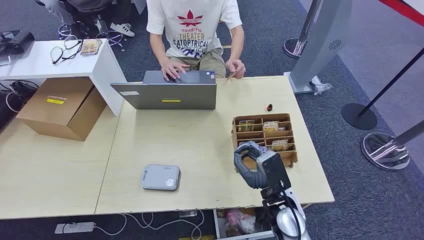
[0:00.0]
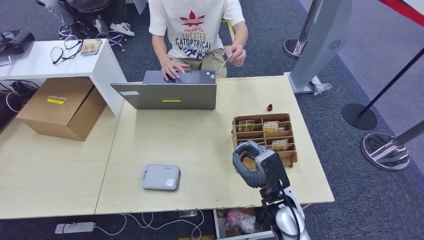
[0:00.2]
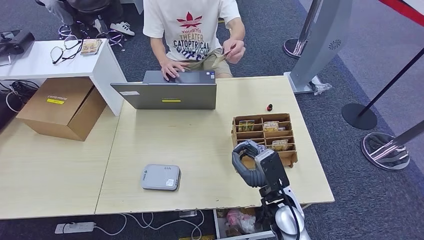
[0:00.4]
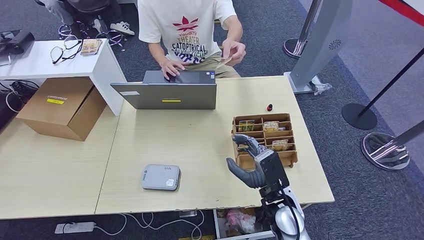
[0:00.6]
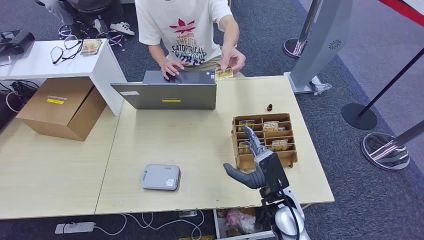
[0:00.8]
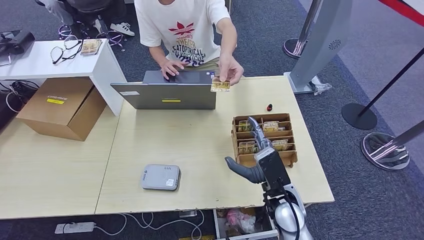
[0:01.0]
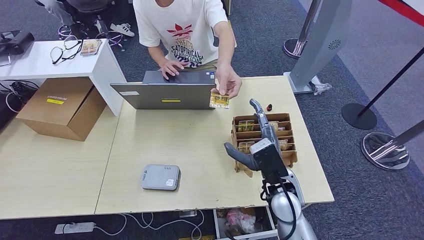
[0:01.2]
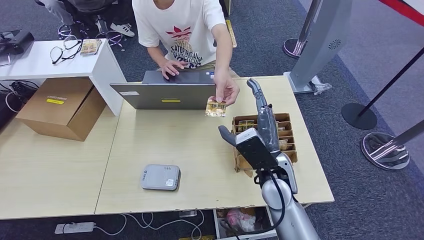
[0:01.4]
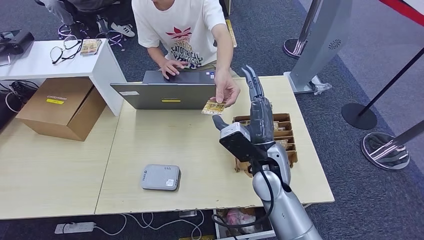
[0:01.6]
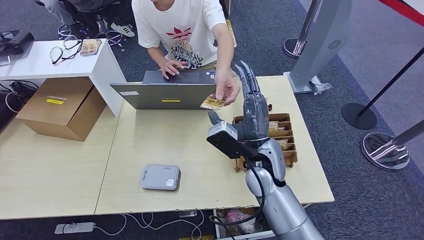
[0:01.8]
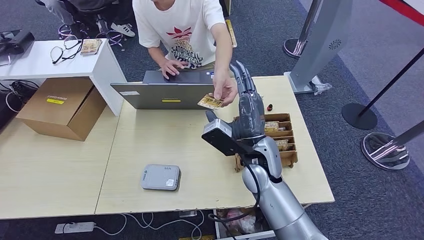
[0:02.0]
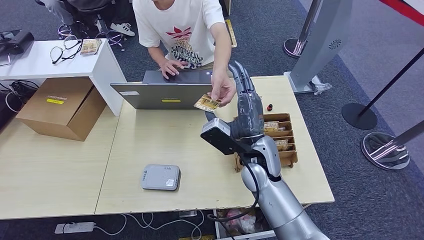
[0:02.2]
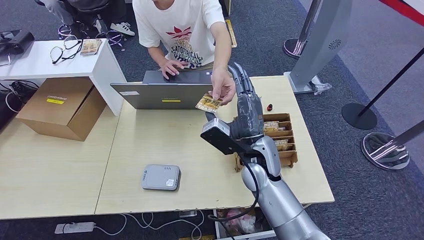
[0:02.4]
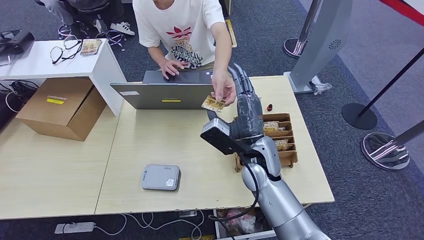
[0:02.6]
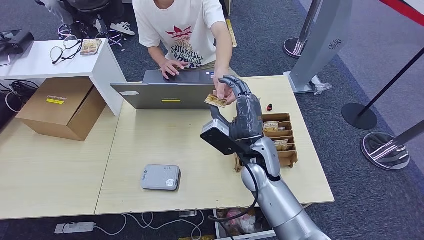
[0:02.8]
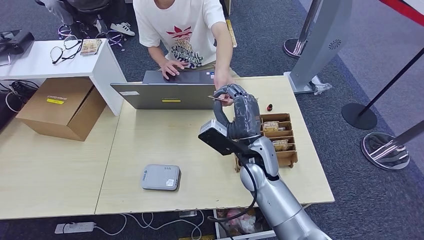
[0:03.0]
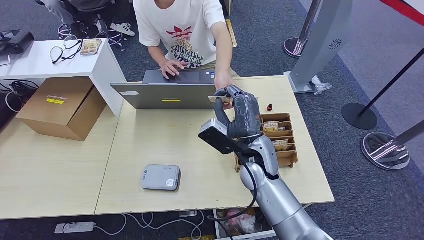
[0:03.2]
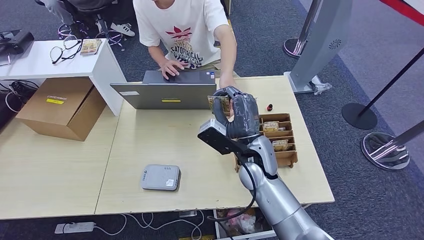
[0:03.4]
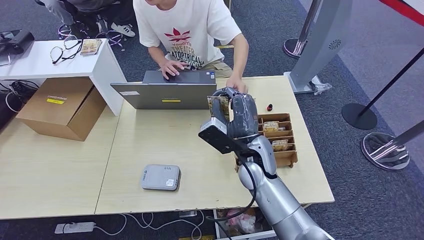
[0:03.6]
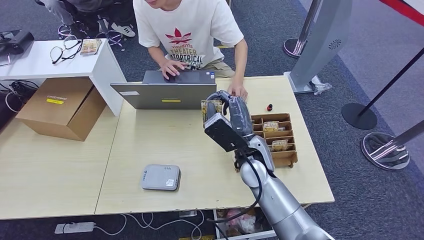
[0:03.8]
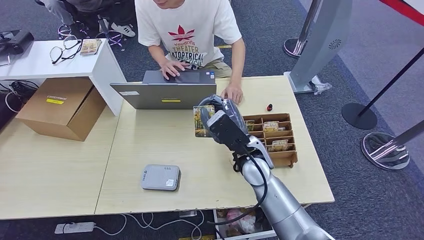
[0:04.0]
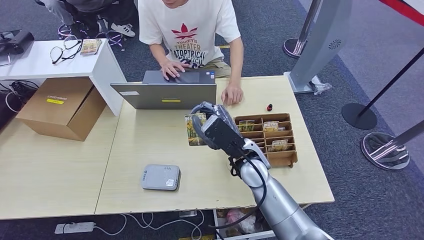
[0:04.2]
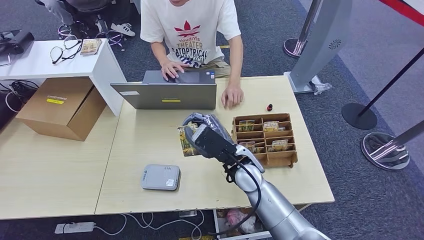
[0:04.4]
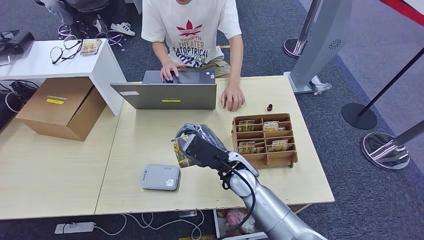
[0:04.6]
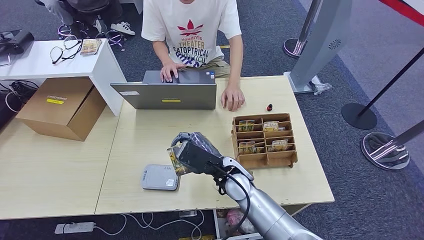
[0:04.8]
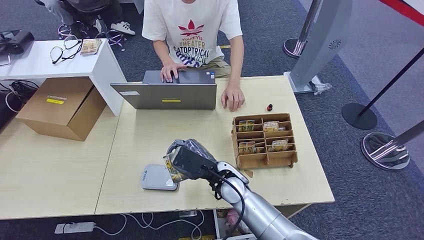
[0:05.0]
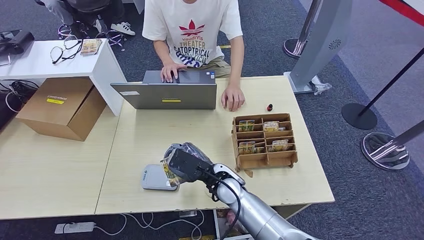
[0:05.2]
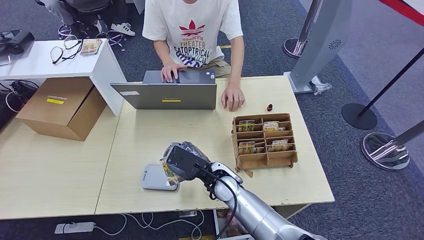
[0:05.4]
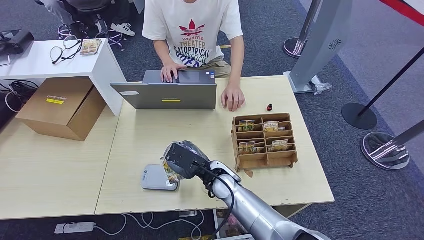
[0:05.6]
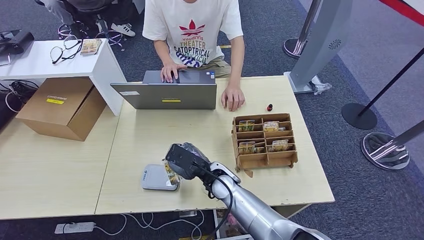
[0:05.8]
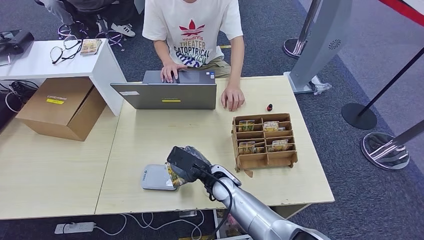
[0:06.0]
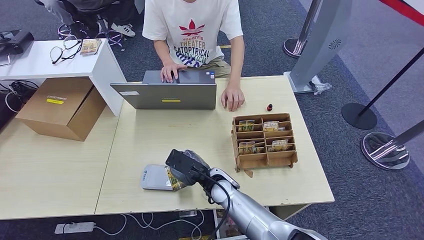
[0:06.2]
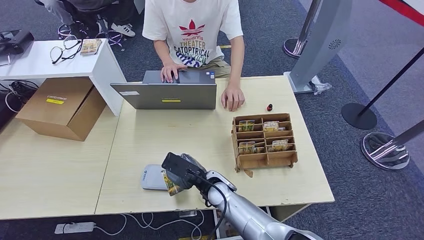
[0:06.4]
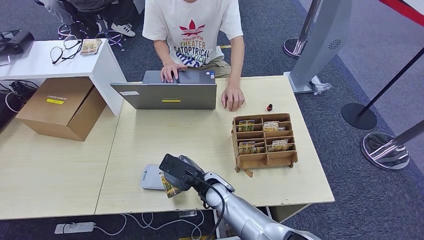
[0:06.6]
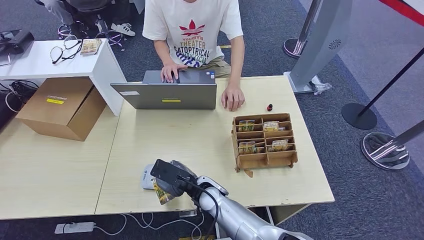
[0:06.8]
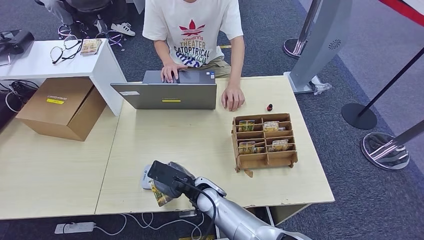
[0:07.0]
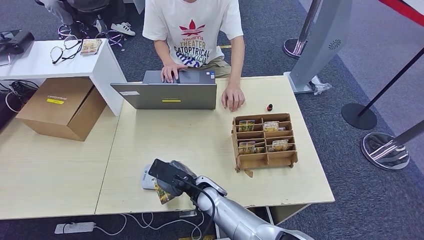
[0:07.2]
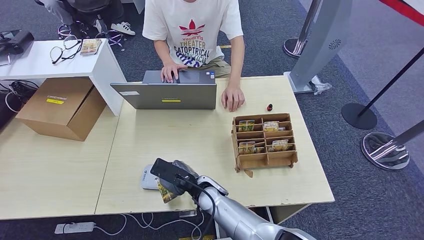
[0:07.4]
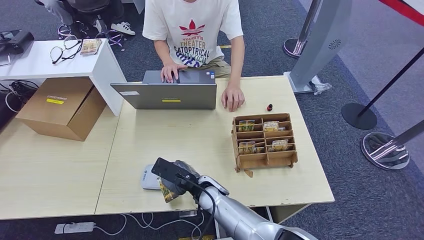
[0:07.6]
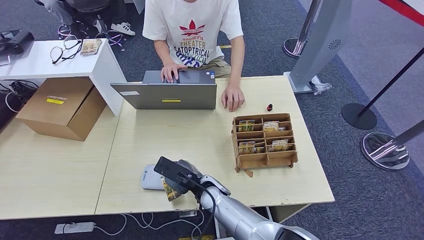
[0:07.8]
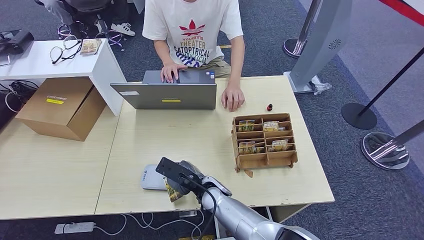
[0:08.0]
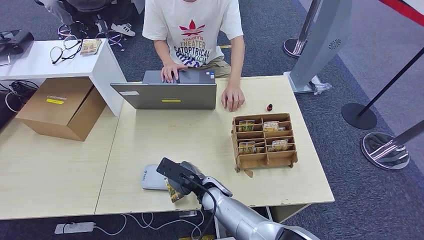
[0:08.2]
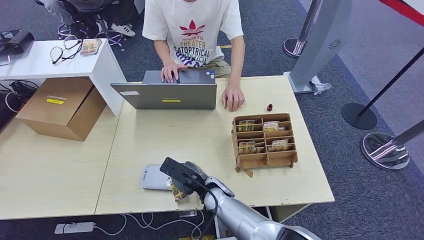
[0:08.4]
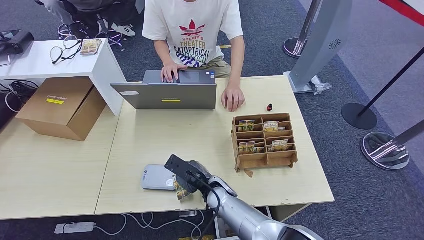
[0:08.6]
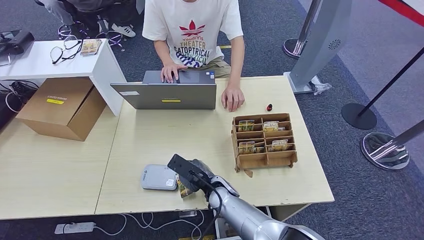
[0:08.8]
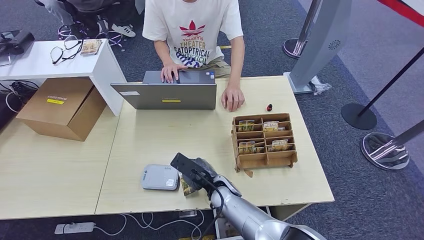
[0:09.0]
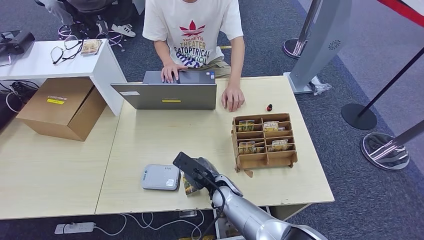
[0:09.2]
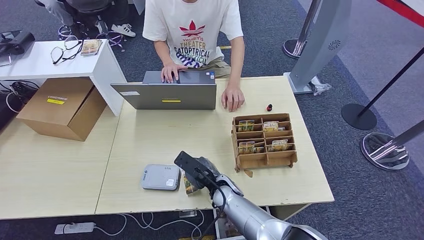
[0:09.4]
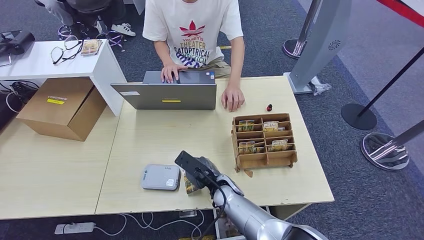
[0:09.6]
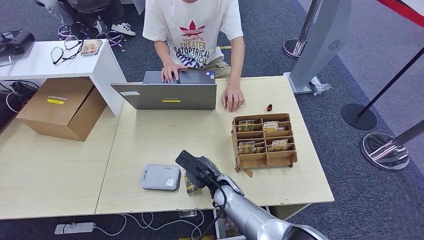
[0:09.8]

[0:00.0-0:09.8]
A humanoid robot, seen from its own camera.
Step, 0:00.0 to 0:03.6: Take the ID card from the person's hand.
0:01.4 to 0:02.8: The hands make only small movements.
0:04.2 to 0:05.6: The right hand heads downward and to the left, covering about 10 cm.
0:05.6 to 0:07.0: The right hand ends up about 5 cm from where it was.
0:07.0 to 0:08.4: The hands move only a little.
0:08.4 to 0:09.8: The hands stay close to where they were, moving slightly.

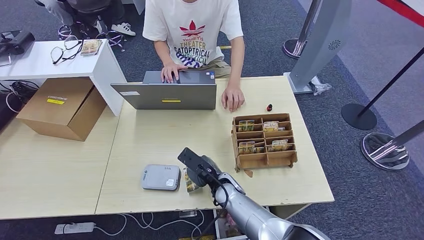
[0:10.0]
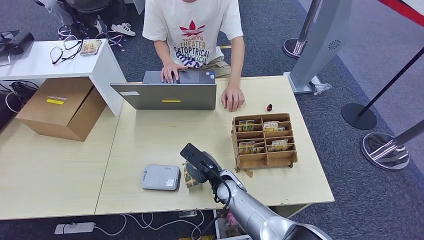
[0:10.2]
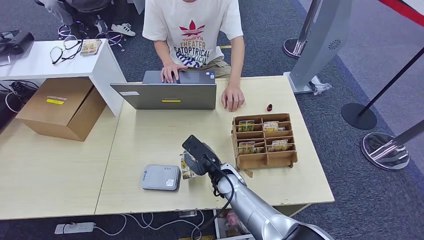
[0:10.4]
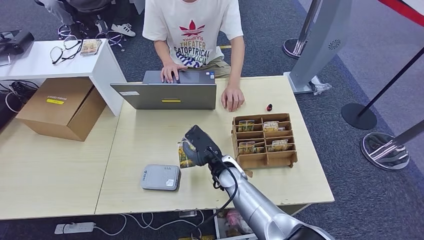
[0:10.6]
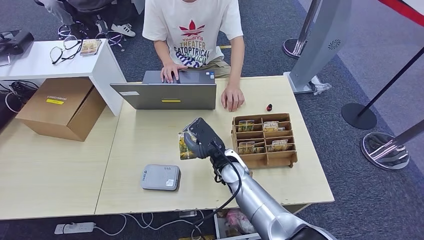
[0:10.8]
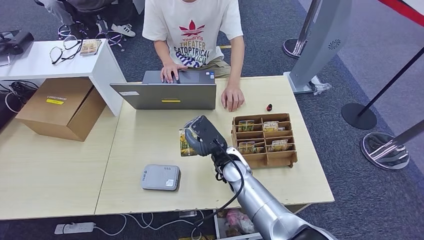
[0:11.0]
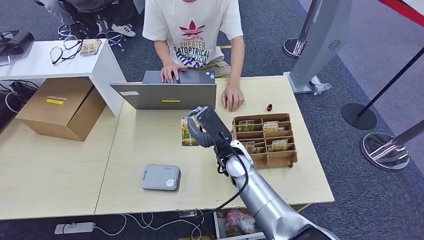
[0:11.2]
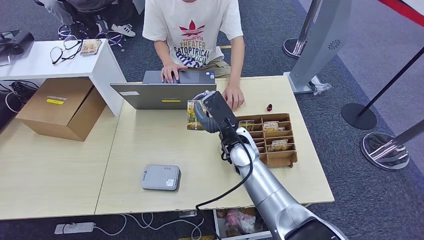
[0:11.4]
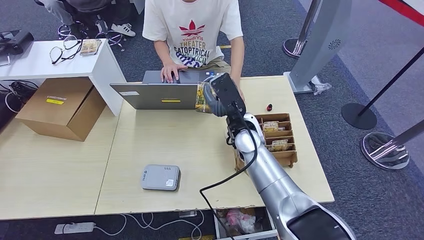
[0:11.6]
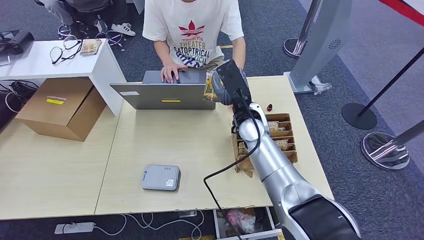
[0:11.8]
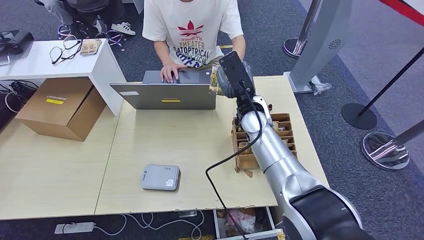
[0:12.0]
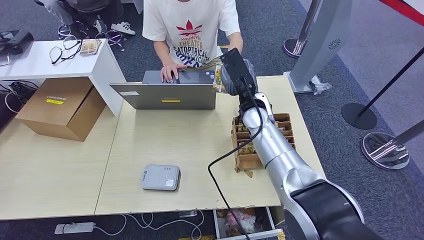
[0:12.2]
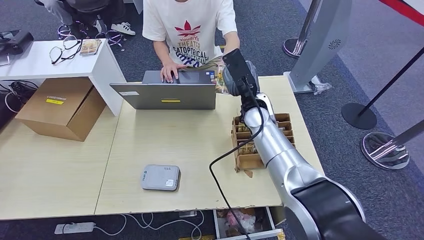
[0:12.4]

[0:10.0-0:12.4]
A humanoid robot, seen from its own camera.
Step, 0:11.2 to 0:12.4: Hand the ID card to the person.
0:10.0 to 0:11.2: The right hand heads upward, covering approximately 10 cm.
0:11.2 to 0:12.4: The right hand goes approximately 15 cm forward, upward and to the right.
